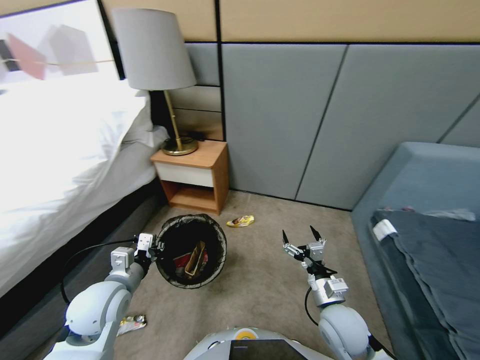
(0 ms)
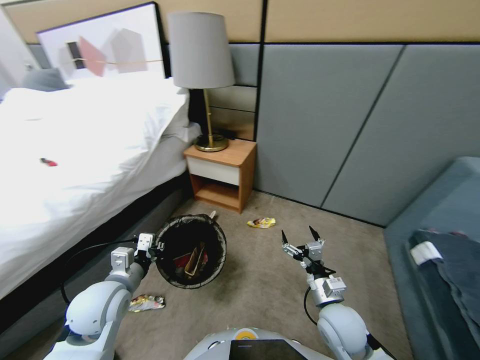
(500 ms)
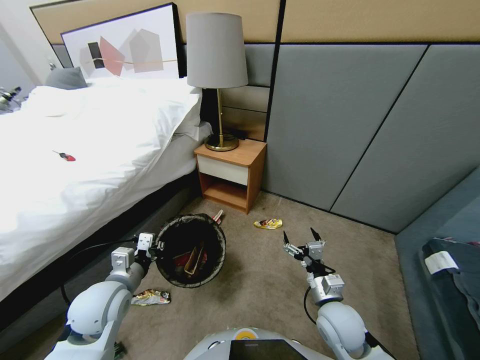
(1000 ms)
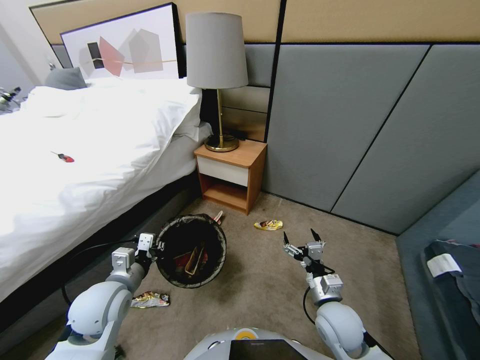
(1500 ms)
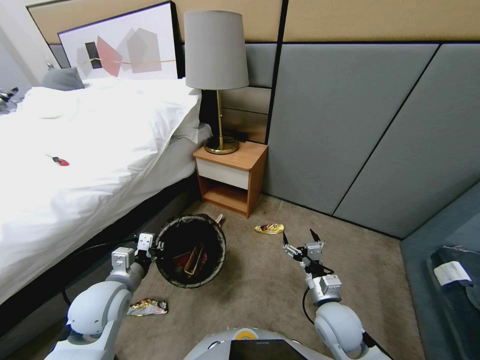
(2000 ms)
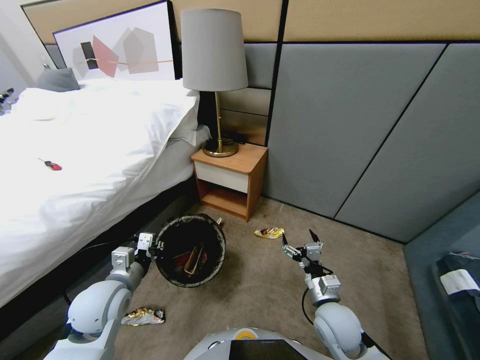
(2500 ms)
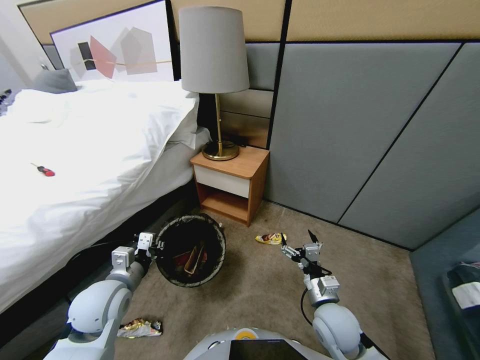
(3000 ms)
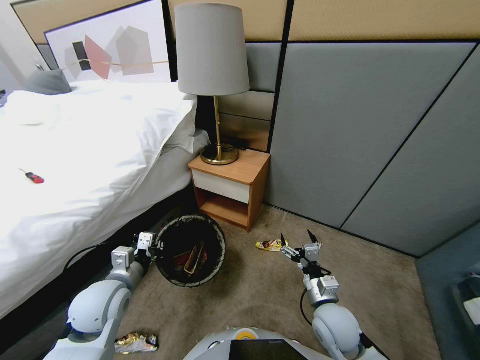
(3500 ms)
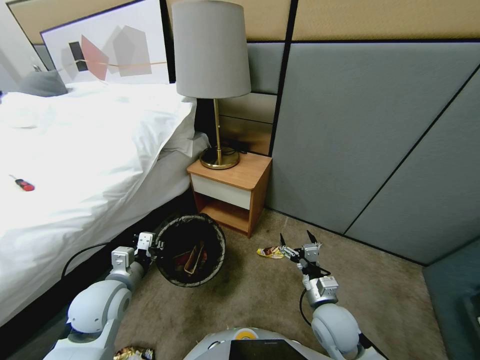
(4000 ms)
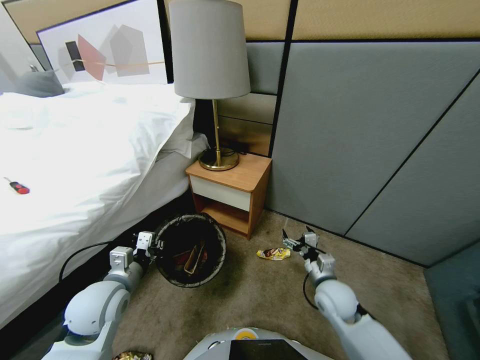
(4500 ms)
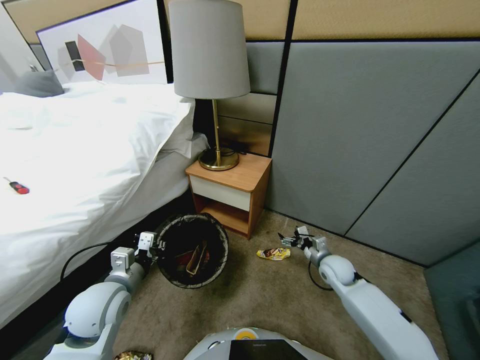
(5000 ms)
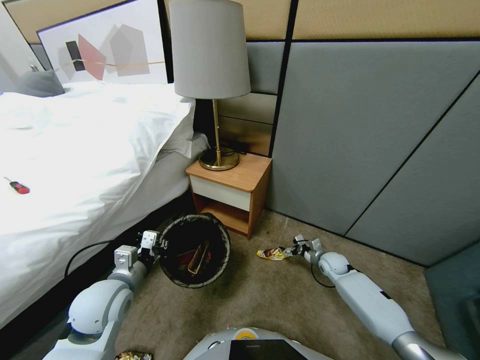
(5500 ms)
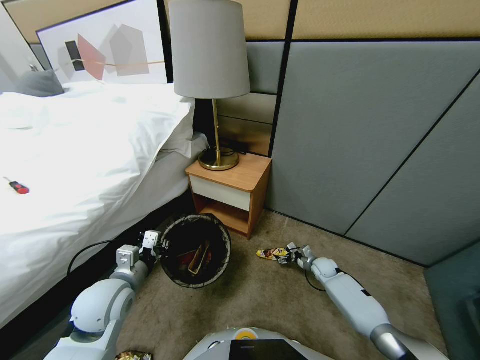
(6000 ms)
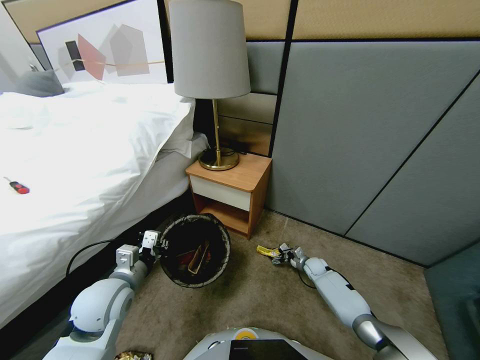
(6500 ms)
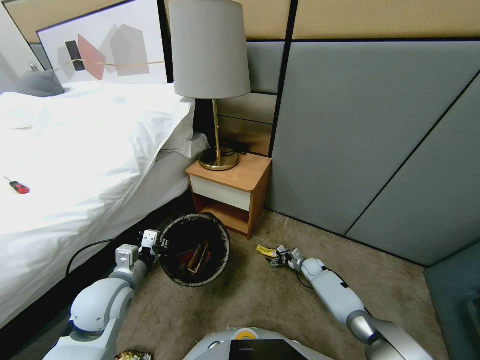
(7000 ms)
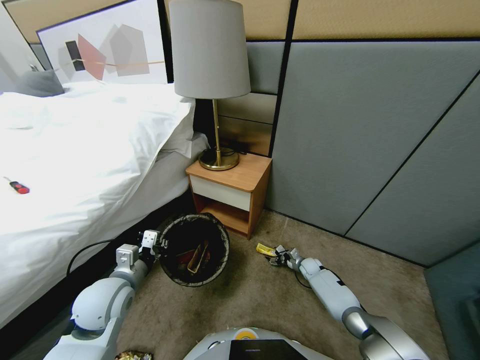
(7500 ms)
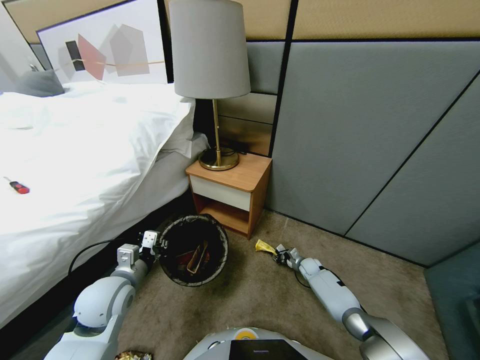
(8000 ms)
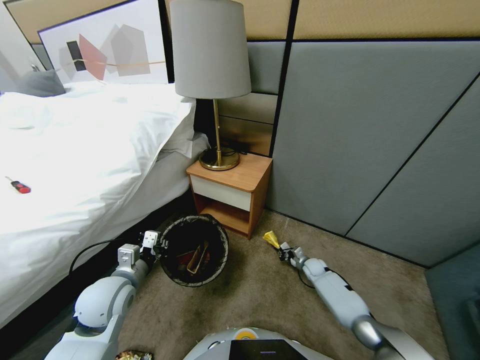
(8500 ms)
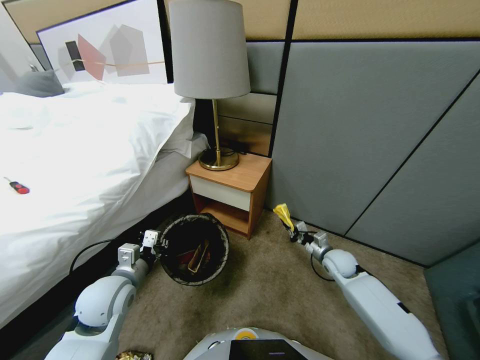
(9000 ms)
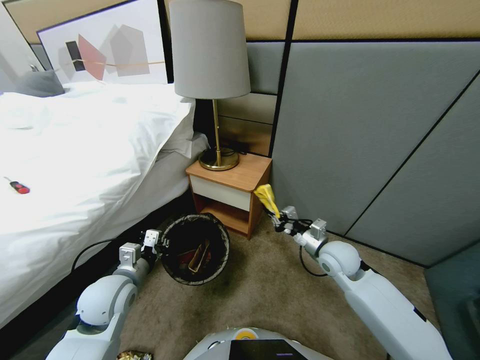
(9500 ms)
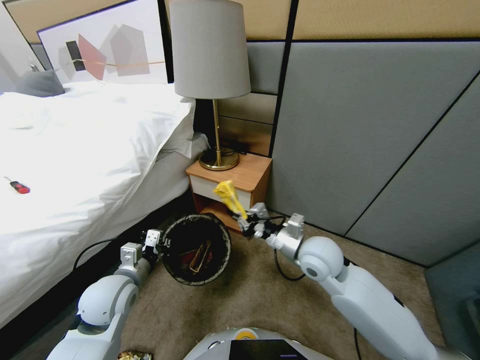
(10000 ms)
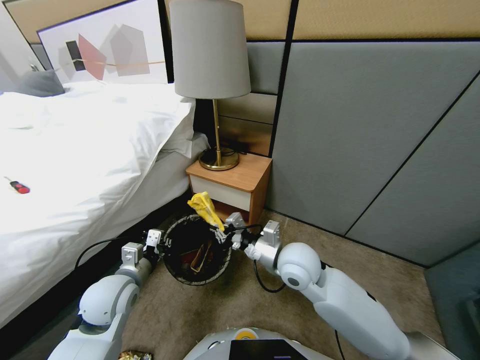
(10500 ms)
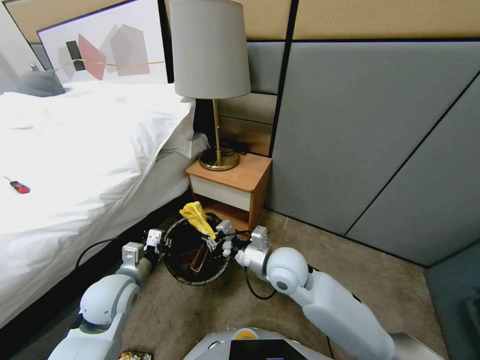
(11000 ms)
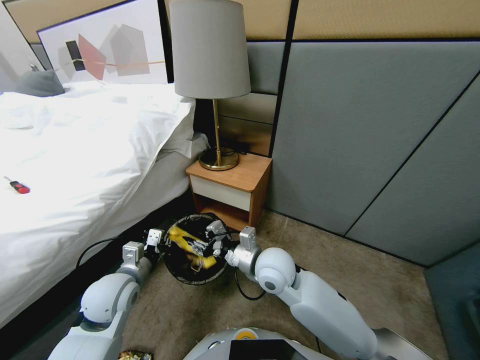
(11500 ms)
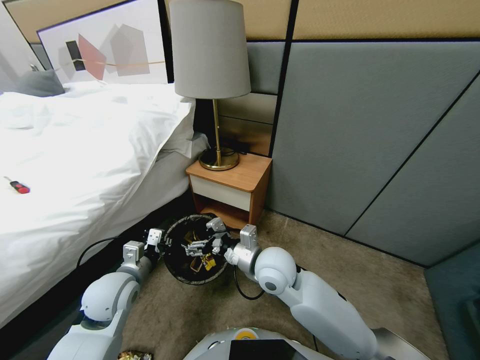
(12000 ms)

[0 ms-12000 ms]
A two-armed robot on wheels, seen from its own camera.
Task of the whole recording: Pick up the trash bin, then pick up the garbage from the floor and place it into the trash bin.
4000 ms to 6000 ms: The right gripper is displaced forward, downward and to the right by some 30 cm.
6000 ms to 8000 ms: The right gripper closes its fingers.
8000 ms to 10000 ms: The right gripper is displaced upward and to the left by approximately 40 cm.
10000 ms to 12000 ms: The right gripper shifts about 10 cm to the left, and opens.

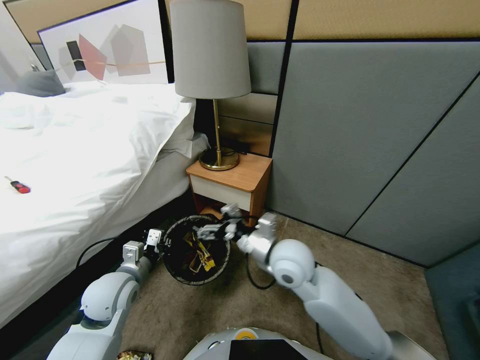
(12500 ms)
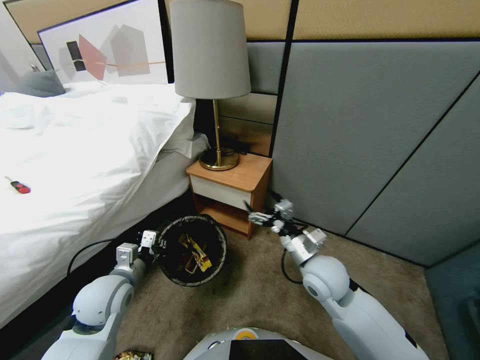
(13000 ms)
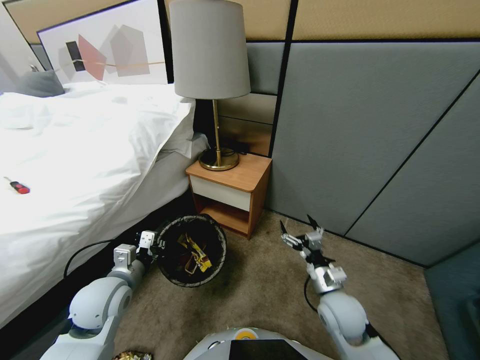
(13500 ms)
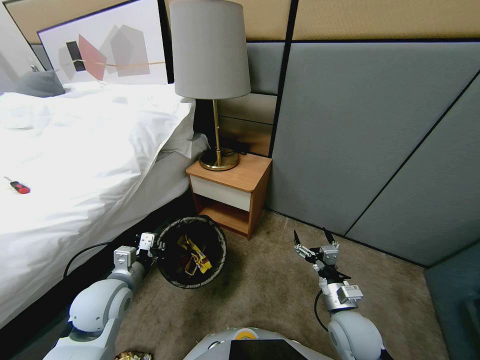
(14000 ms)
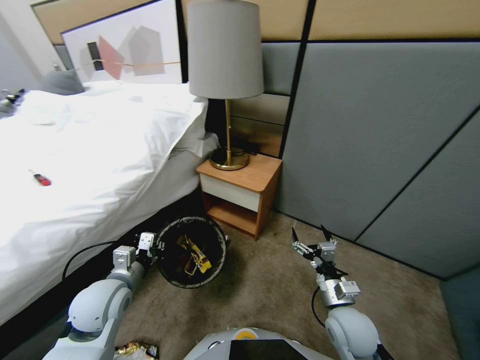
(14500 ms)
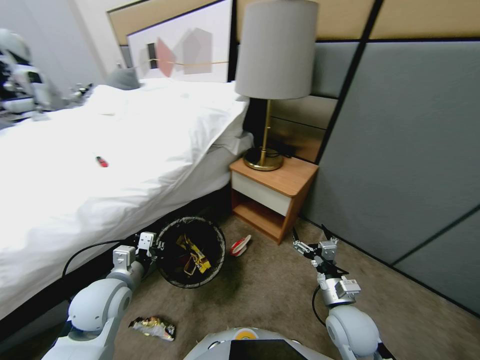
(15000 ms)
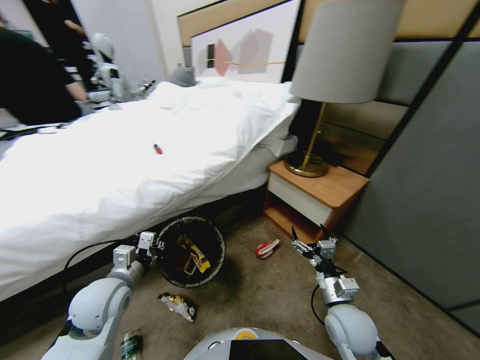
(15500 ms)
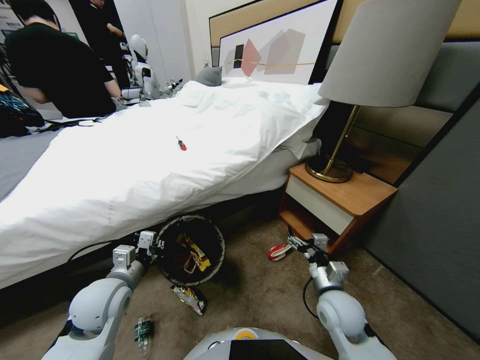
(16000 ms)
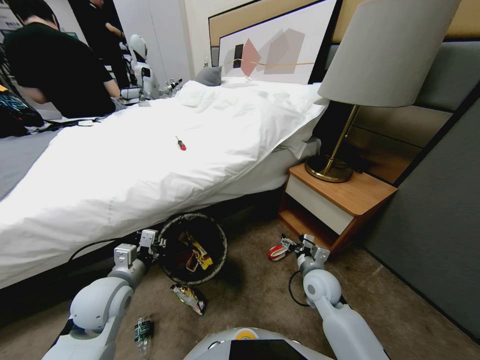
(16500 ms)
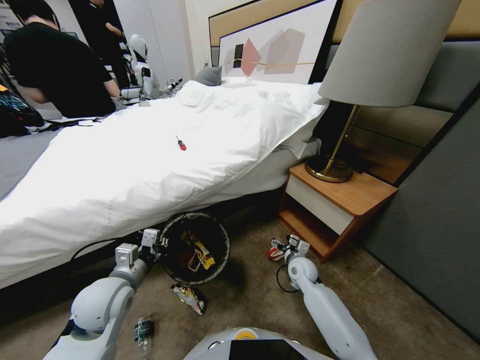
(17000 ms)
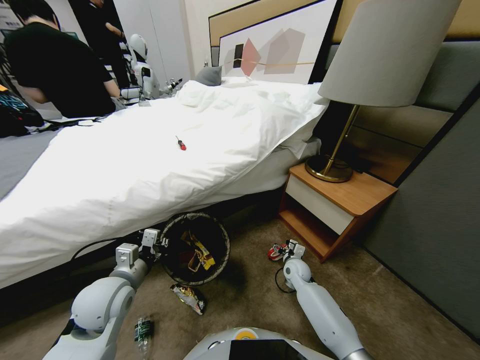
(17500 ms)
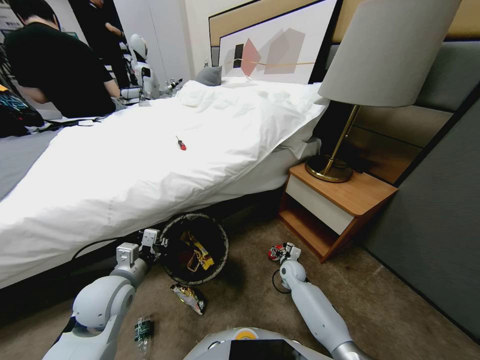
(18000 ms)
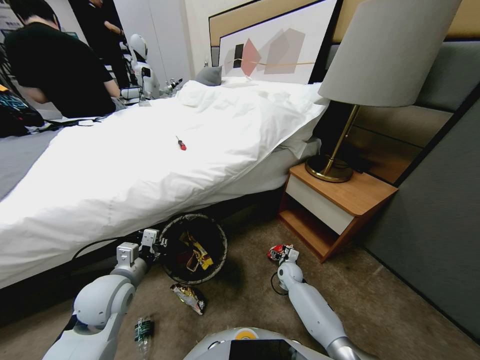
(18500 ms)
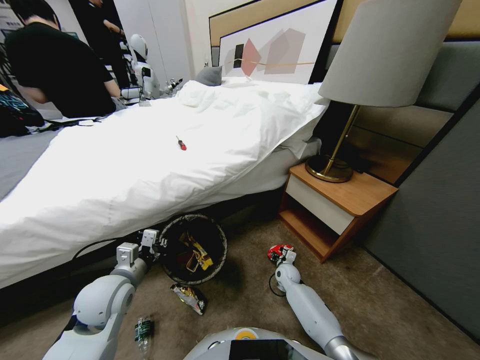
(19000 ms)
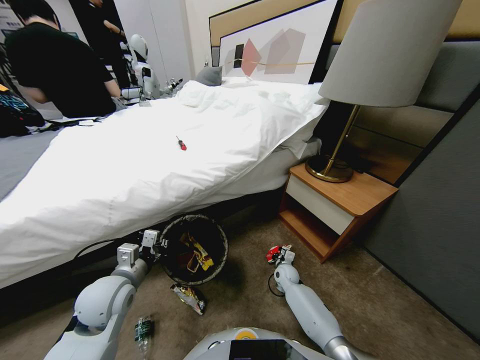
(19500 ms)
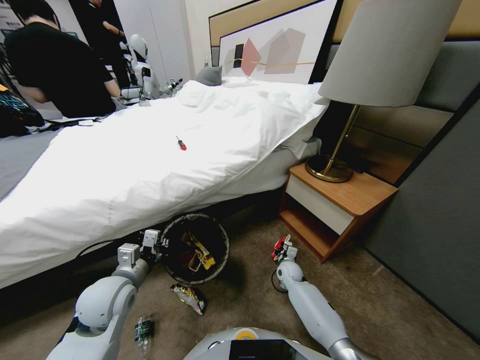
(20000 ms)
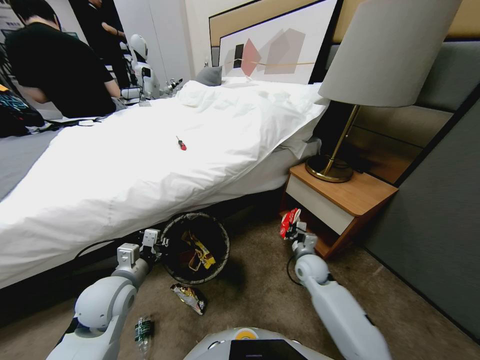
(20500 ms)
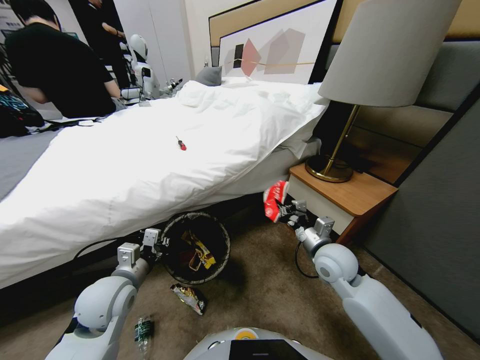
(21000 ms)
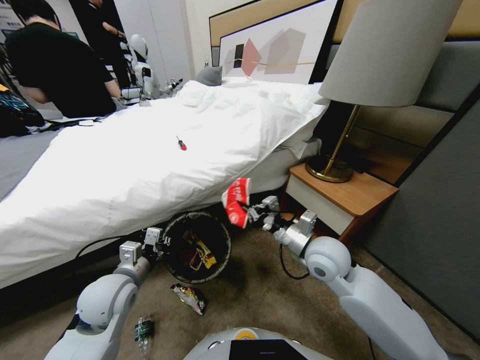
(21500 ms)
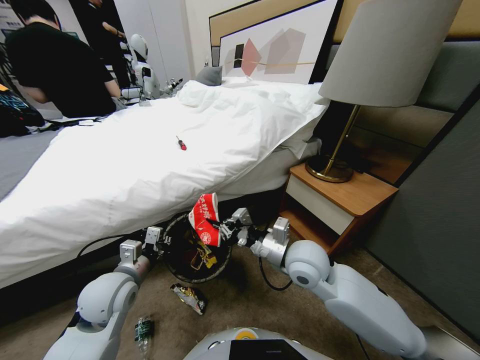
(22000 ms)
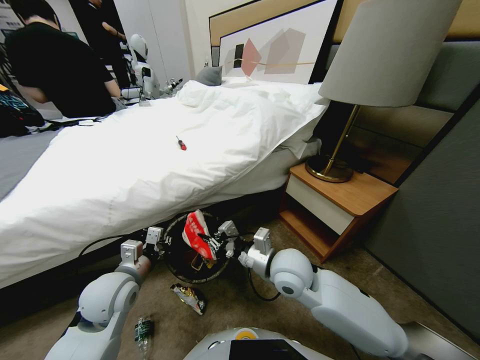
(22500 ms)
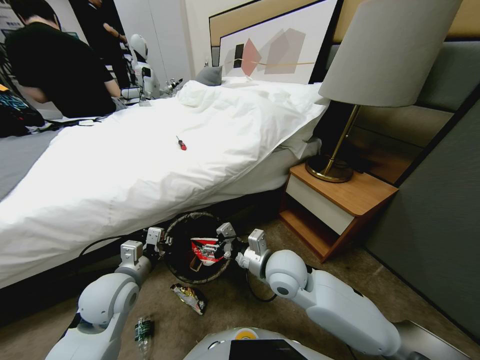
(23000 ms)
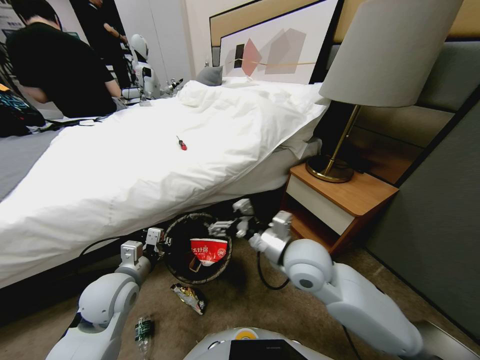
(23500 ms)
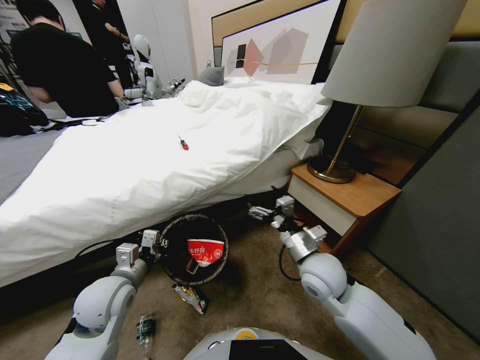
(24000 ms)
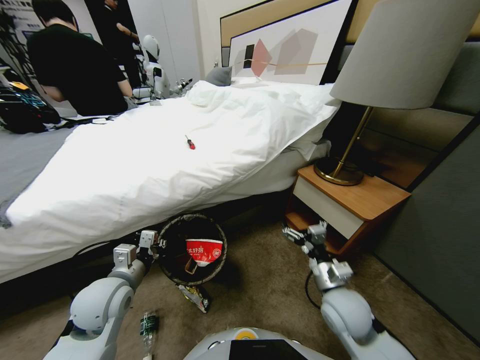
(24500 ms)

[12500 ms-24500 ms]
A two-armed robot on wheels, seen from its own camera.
Task of the whole recording: Pick up the trash bin, then pick up the garbage from the floor and place it into the trash bin.
12500 ms to 14500 ms: The right gripper goes roughly 20 cm downward, to the right and backward.
14500 ms to 16500 ms: The right gripper is displaced forward by some 15 cm.
16500 ms to 18500 ms: The right gripper is displaced downward and forward by approximately 20 cm.
18500 ms to 20500 ms: The right gripper is displaced upward by some 20 cm, and closes up.
20500 ms to 22500 ms: The right gripper goes approximately 20 cm to the left and upward.
22500 ms to 24500 ms: The right gripper shifts about 20 cm to the right, backward and downward, and opens up.

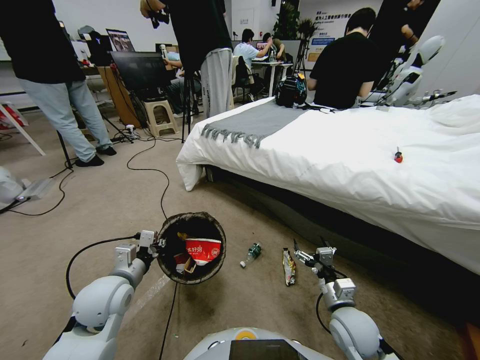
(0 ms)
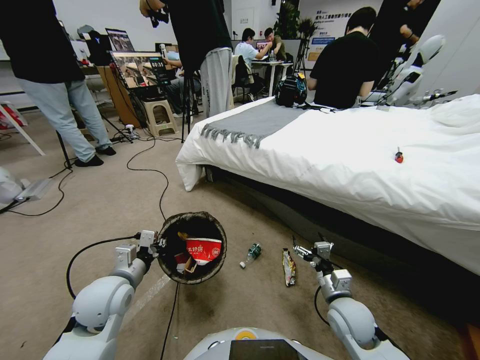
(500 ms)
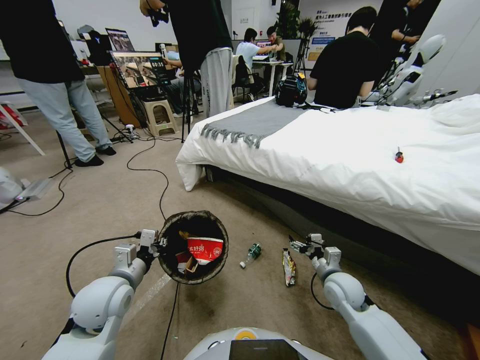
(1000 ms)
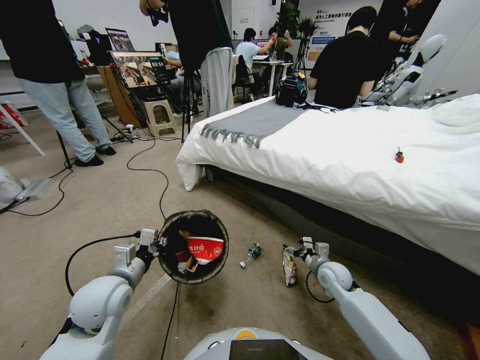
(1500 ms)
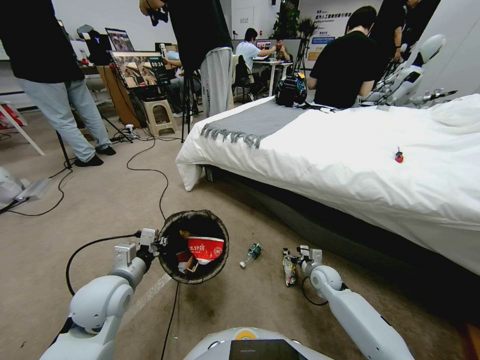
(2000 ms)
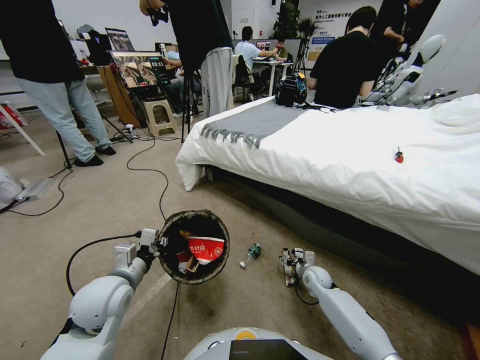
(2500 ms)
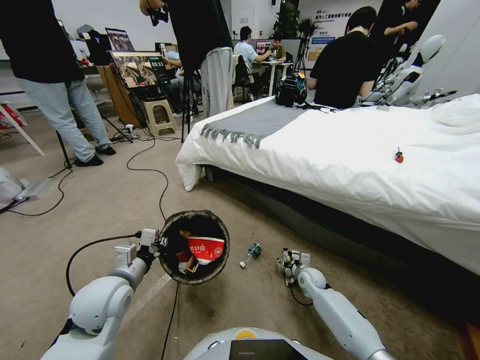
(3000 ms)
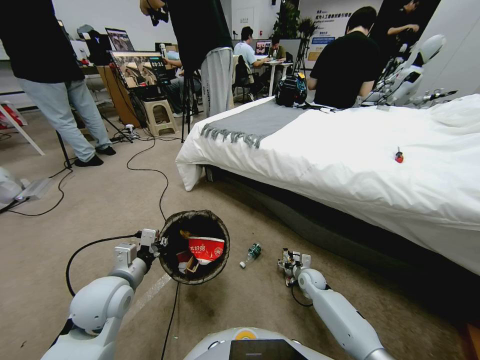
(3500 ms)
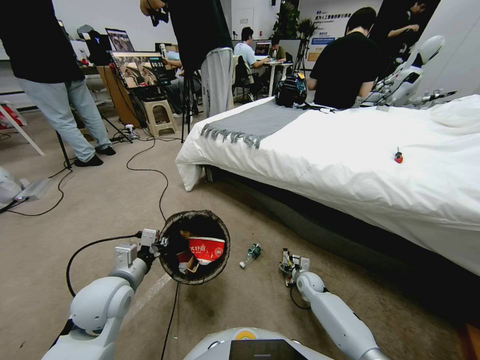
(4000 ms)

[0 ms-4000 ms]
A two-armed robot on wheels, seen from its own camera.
Task of the whole recording: Pick up the trash bin, then pick up the garbage from the floor and place it into the trash bin.
0 ms to 2000 ms: The right gripper goes some 20 cm forward and downward.
2000 ms to 4000 ms: The right gripper travels downward by roughly 10 cm, and closes up.
